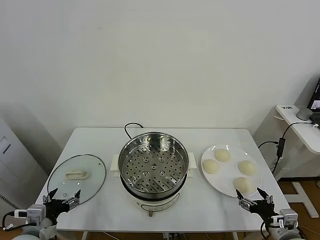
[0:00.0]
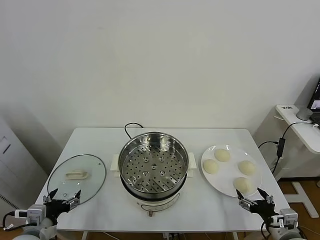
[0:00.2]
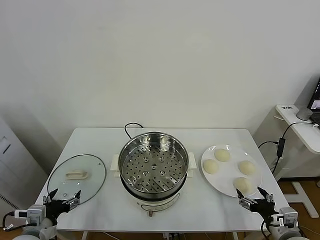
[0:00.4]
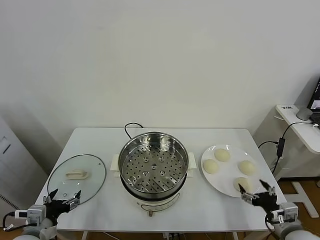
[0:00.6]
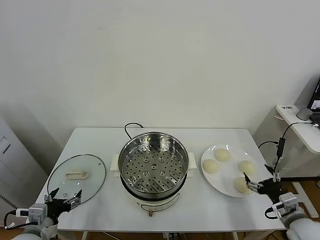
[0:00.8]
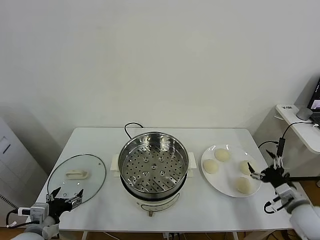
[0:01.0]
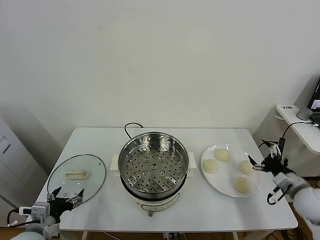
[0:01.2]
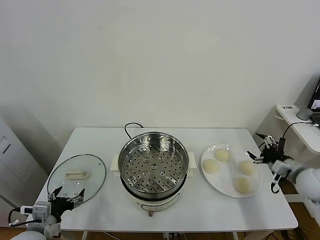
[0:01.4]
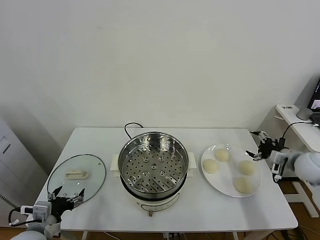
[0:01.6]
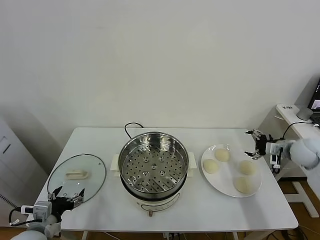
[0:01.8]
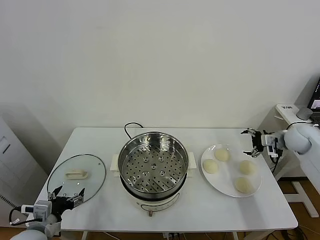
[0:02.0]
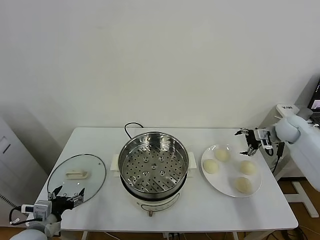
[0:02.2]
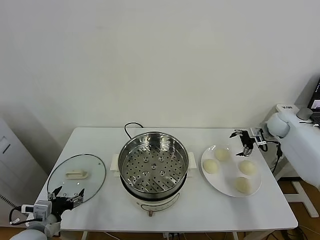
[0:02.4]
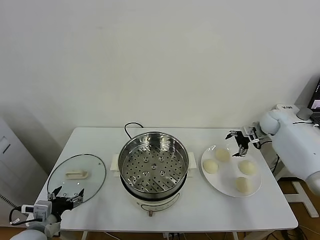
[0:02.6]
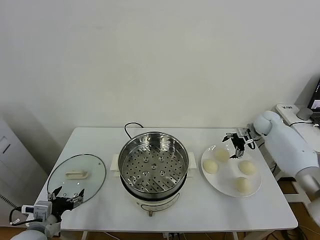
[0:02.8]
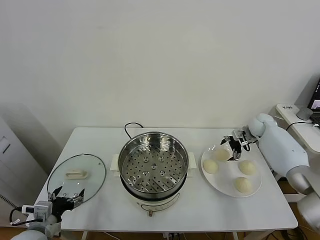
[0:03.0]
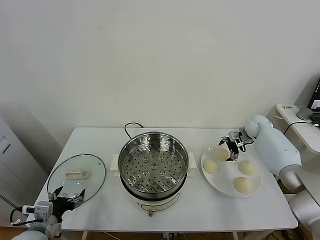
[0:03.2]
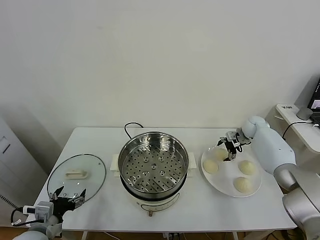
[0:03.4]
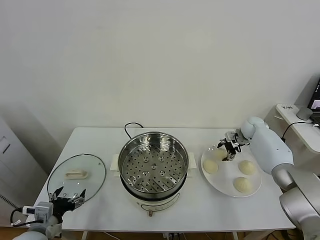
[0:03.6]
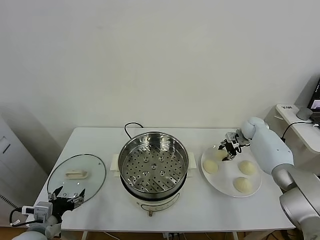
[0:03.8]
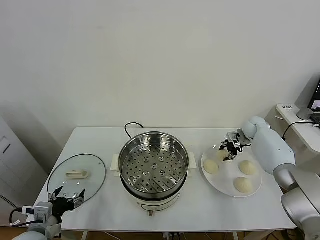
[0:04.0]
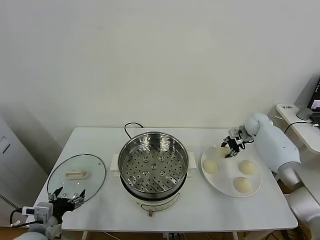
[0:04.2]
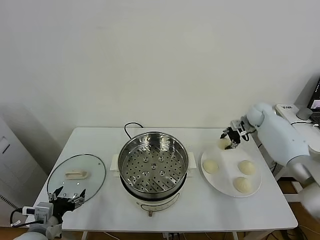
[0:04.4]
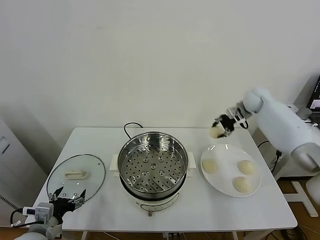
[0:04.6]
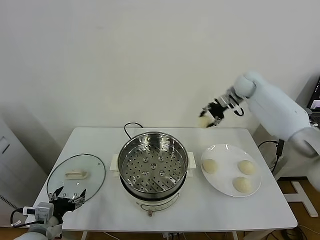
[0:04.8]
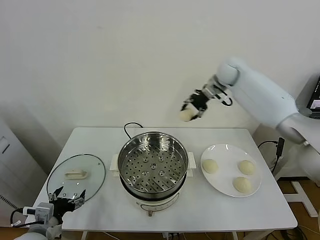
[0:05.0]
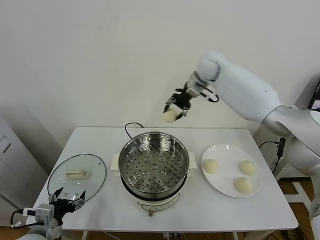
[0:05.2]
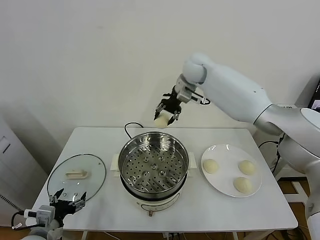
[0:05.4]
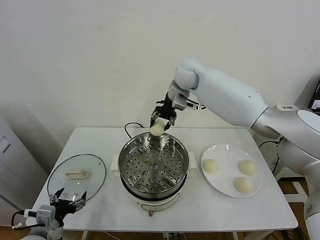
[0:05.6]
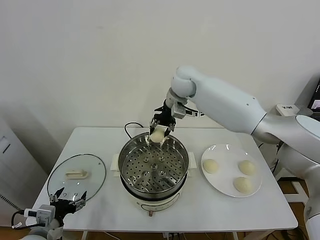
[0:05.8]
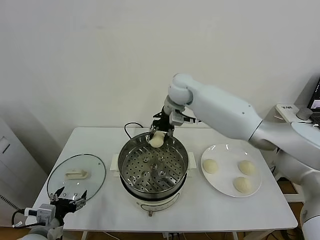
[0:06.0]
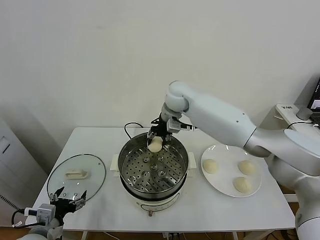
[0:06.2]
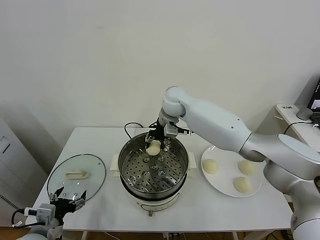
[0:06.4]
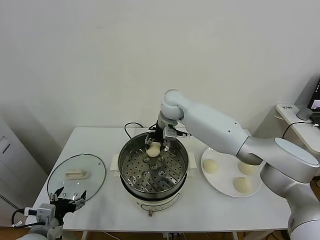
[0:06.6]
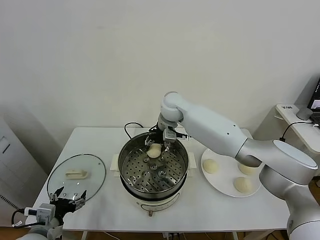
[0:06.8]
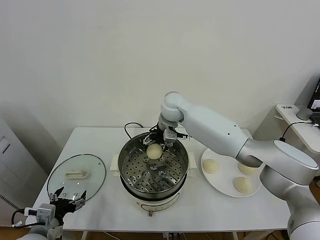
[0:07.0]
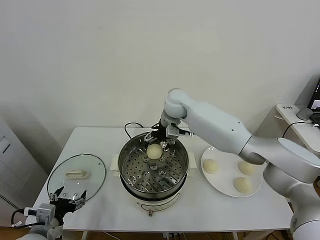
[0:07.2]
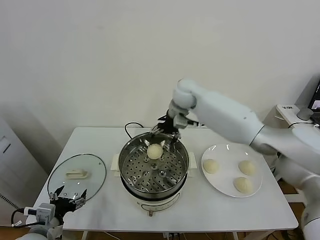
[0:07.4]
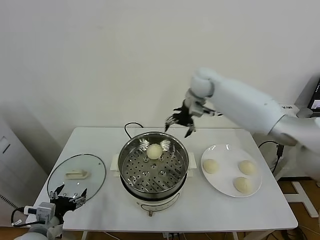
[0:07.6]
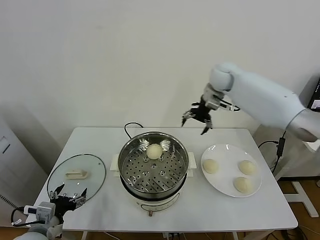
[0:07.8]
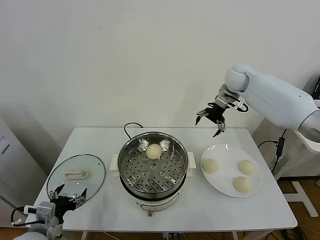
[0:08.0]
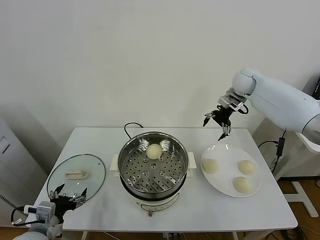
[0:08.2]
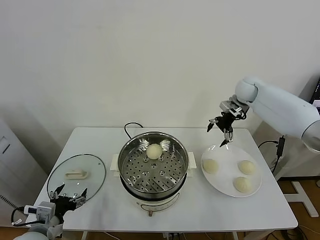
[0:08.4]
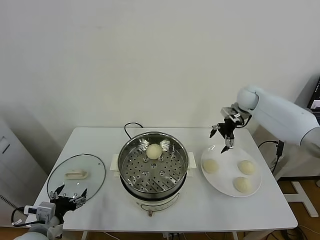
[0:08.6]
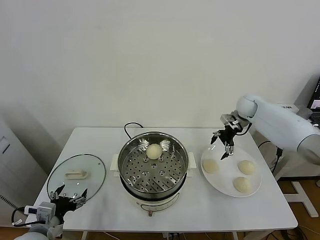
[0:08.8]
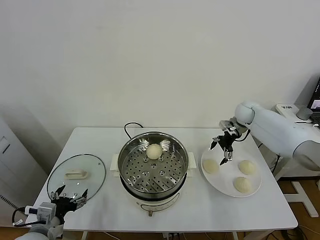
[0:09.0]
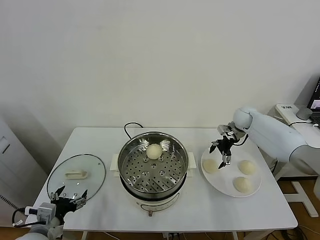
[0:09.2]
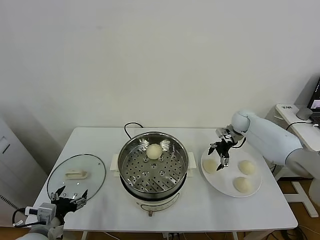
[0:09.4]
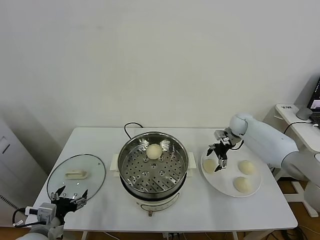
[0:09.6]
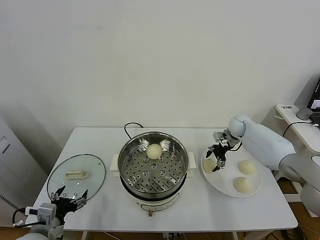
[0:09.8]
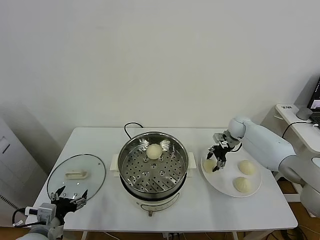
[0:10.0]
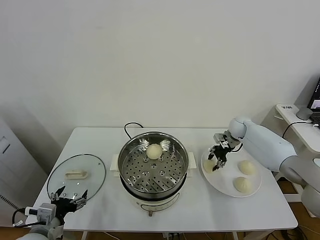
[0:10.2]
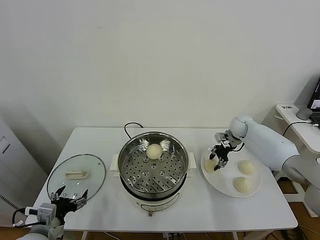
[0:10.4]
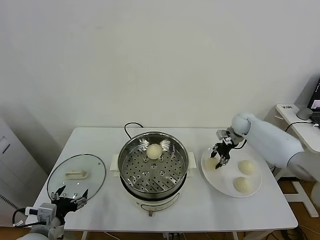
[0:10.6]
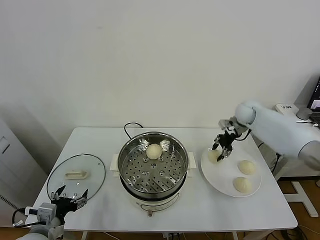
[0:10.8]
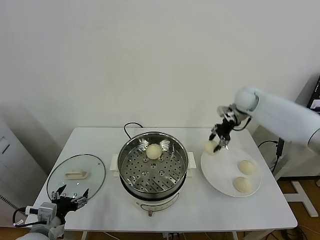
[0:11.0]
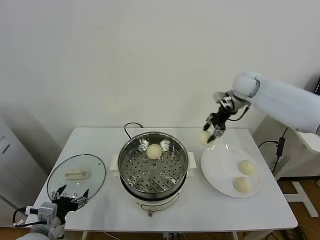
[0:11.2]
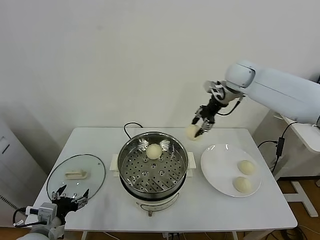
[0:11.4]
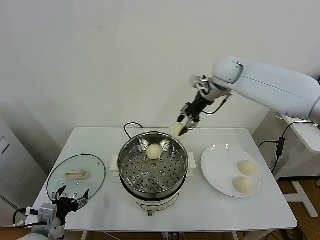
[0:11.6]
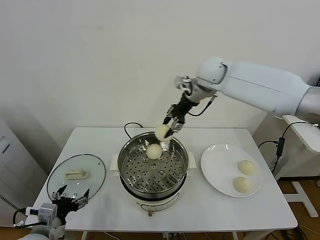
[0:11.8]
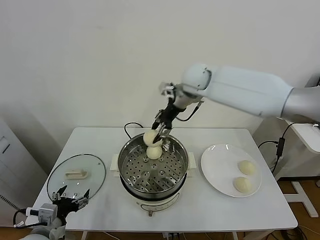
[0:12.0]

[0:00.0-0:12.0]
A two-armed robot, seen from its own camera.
Task of the whole recording: take steamed baozi put them in steamer.
Step, 0:00.0 to 0:03.6: Grasp the baozi in the plate with right gripper.
Step, 0:03.8 to 0:07.2: Place the baozi on the steamer with right gripper.
Step, 0:07.4 to 0:10.0: Grasp the baozi in the plate with right gripper.
0:01.6 to 0:03.0: The right gripper travels forward by some 20 cm.
0:03.0 to 0:04.4: The right gripper is displaced upward by roughly 10 cm, and closes up.
0:04.4 to 0:06.0: The right gripper is displaced to the left by about 35 cm.
0:06.0 to 0:07.6: The right gripper heads to the right, covering about 10 cm, and opens its fingers.
0:07.6 to 0:09.0: The right gripper goes approximately 25 cm to the right and downward.
0:09.0 to 0:10.4: The right gripper goes roughly 5 cm downward, and closes its fingers.
0:10.4 to 0:12.0: The right gripper moves to the left and upward, approximately 35 cm.

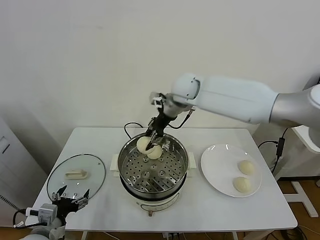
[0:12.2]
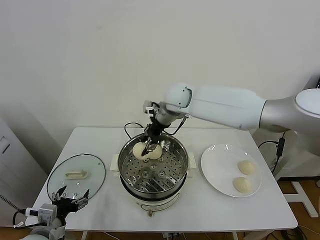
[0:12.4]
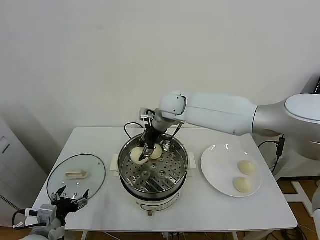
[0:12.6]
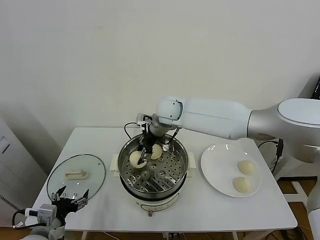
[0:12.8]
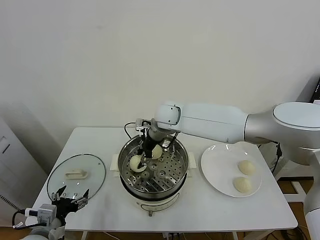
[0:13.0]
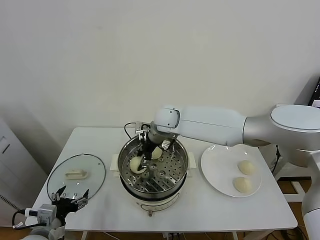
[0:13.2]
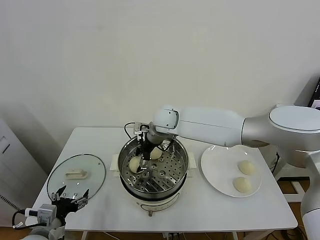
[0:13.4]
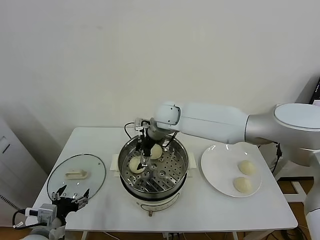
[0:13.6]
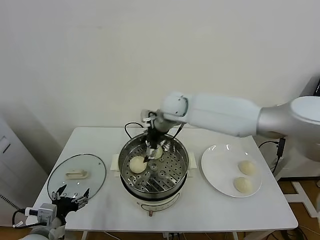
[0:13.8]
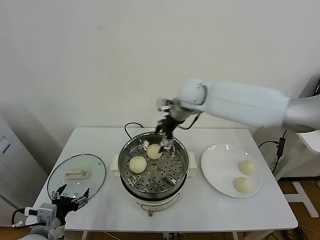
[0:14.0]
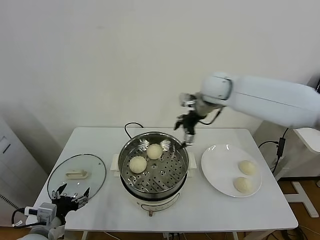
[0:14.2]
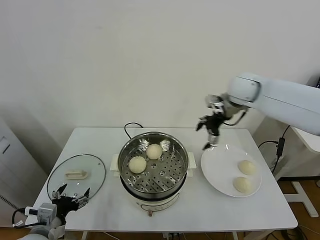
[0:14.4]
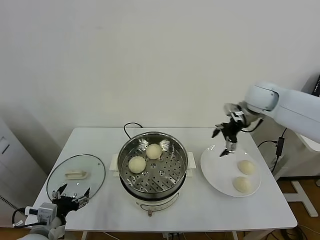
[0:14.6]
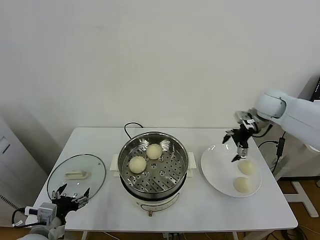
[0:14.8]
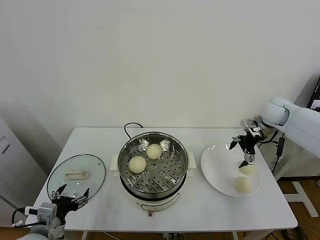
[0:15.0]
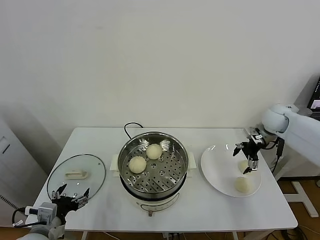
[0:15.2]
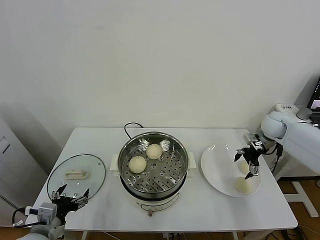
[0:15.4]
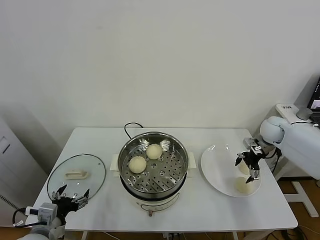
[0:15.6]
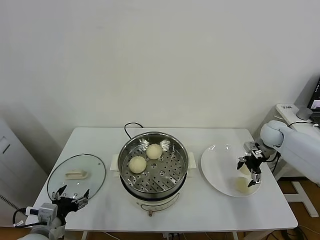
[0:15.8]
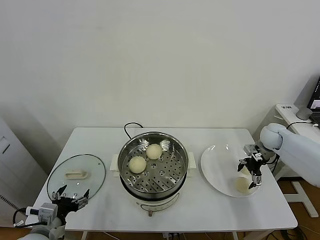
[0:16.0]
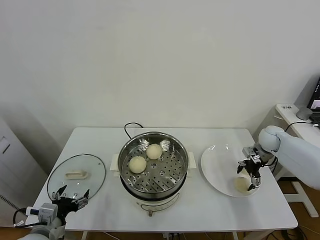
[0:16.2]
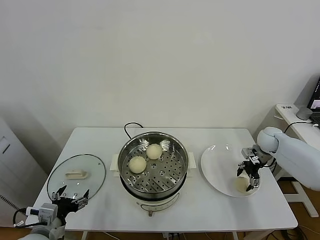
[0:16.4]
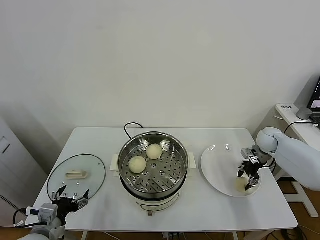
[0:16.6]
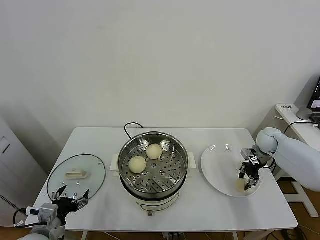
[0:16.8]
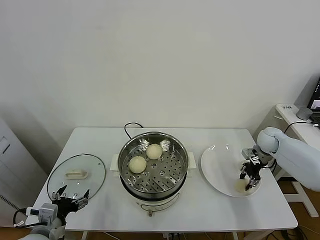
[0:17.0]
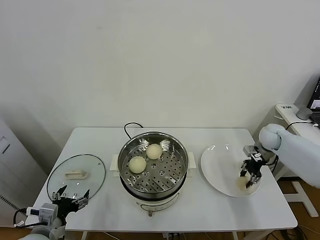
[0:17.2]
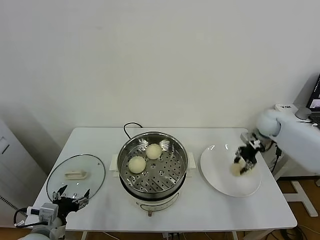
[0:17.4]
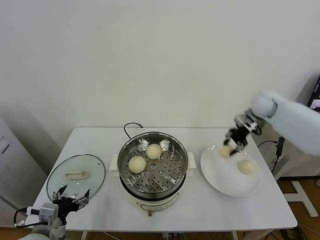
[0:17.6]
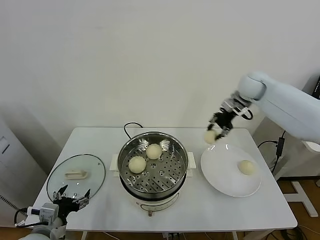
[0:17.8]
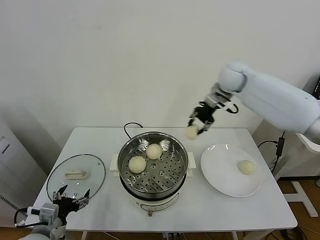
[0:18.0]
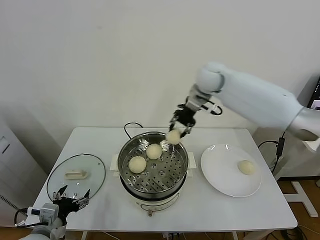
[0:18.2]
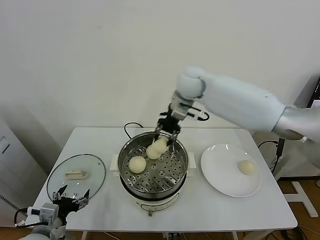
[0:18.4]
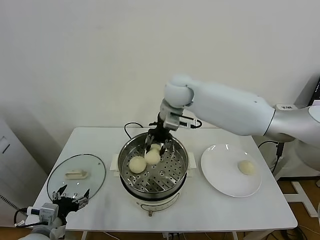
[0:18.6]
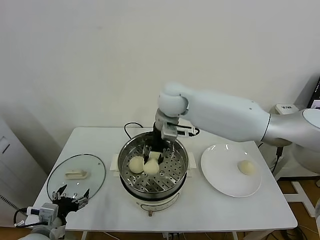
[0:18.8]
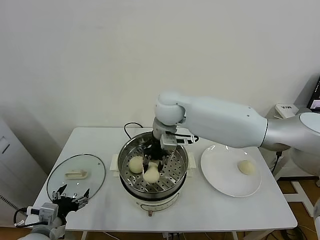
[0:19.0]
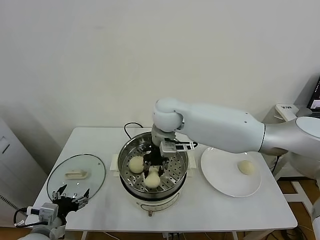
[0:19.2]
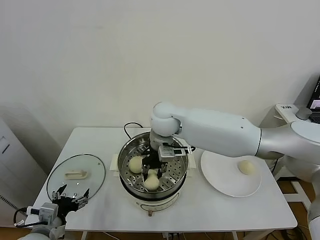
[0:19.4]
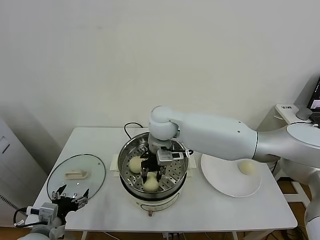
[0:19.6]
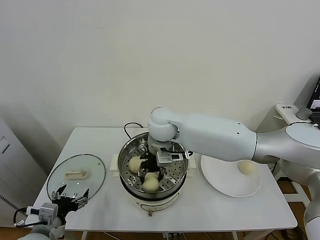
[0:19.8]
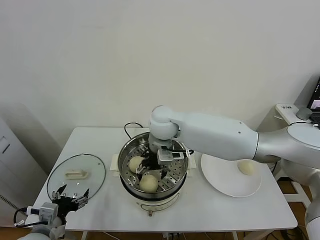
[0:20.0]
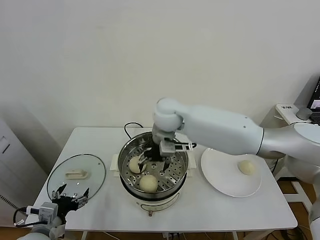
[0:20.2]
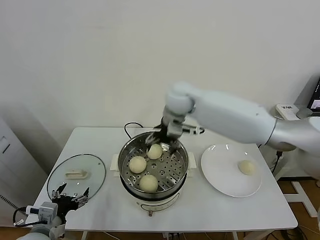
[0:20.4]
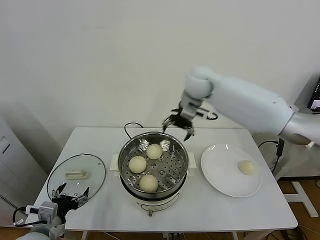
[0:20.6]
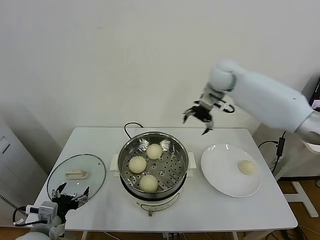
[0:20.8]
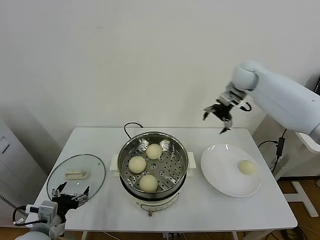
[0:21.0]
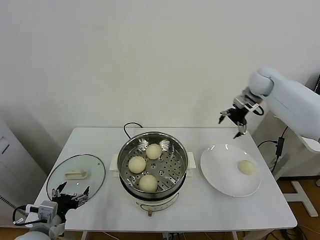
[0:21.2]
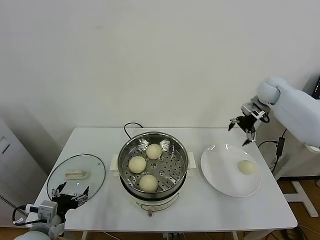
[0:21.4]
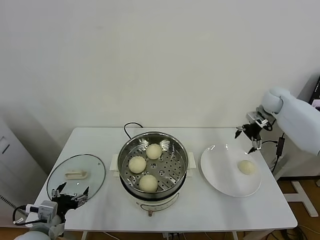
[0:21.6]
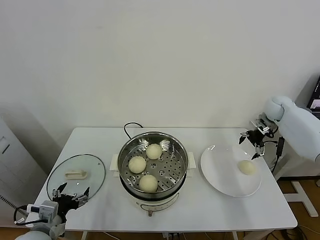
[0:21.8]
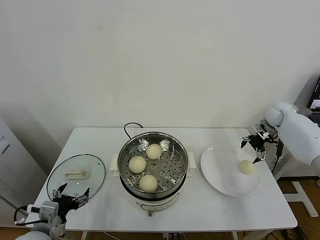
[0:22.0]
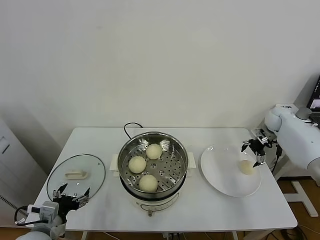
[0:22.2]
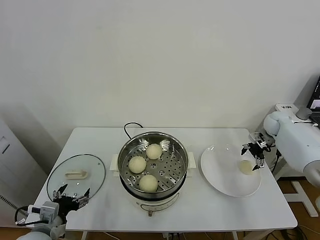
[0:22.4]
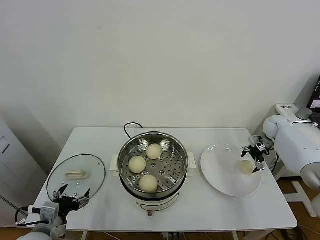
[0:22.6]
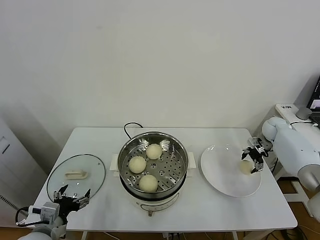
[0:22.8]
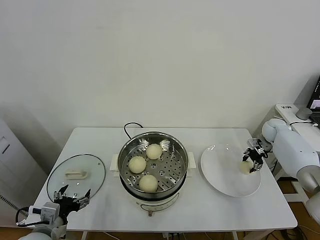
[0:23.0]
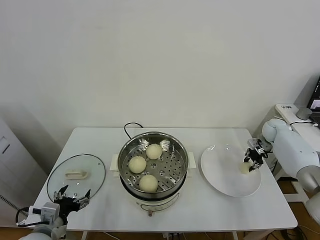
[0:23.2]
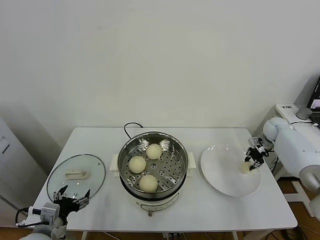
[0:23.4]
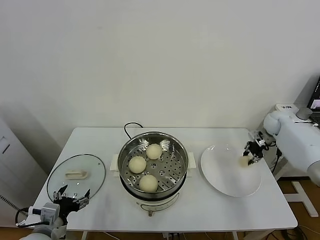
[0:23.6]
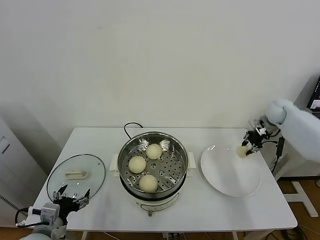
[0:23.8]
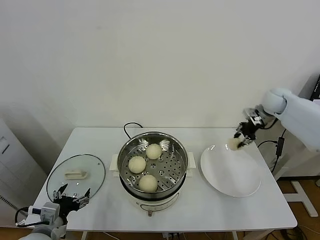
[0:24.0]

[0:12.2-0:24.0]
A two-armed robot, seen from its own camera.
Task of the whole recording: take steamed baozi put them in steamer.
Step, 0:13.6 to 0:16.6: Grasp the baozi in the plate with right gripper.
Step, 0:16.8 to 0:20.2: Place the baozi on the steamer with right gripper.
Step, 0:20.4 to 0:23.0: Grasp the baozi in the plate with right gripper.
0:12.2 to 0:13.6: The right gripper travels downward by about 5 cm, and opens its fingers.
0:13.6 to 0:15.2: The right gripper goes about 40 cm to the right.
0:15.2 to 0:16.6: The right gripper travels downward by roughly 10 cm, and closes up.
0:16.6 to 0:18.2: The right gripper moves to the left and upward, some 40 cm.
0:18.2 to 0:19.6: The right gripper goes roughly 20 cm to the left, backward and downward.
0:19.6 to 0:21.0: The right gripper heads to the right and forward, covering approximately 35 cm, and opens up.
0:21.0 to 0:22.6: The right gripper moves downward and to the right, roughly 30 cm.
0:22.6 to 0:24.0: The right gripper moves upward and to the left, approximately 15 cm, and closes.
